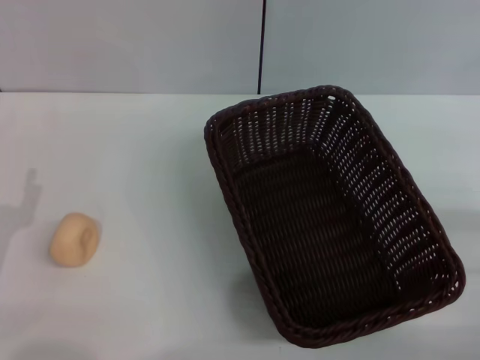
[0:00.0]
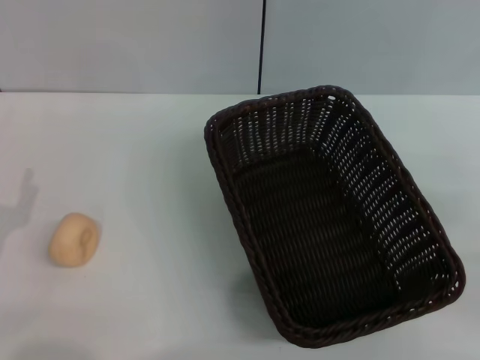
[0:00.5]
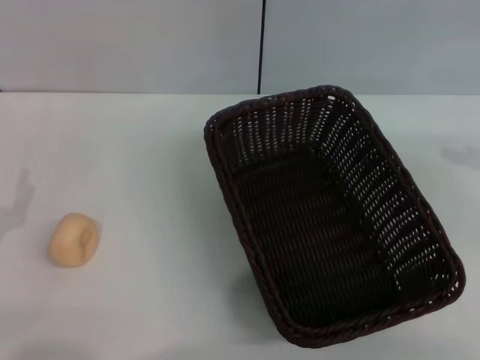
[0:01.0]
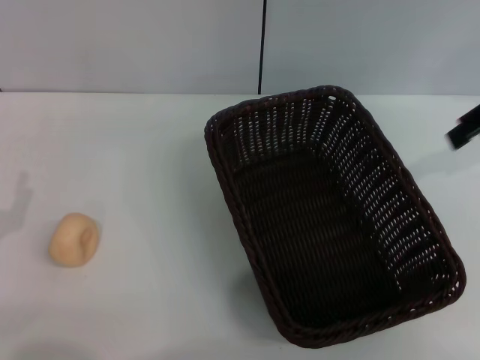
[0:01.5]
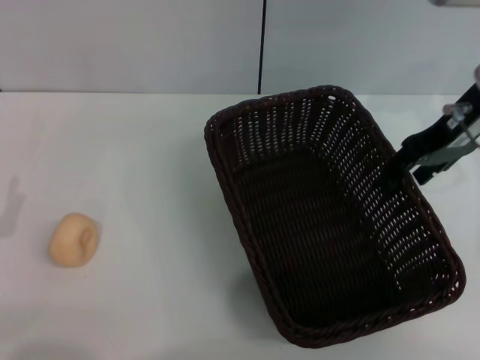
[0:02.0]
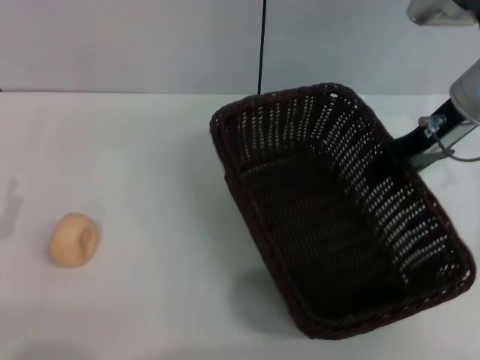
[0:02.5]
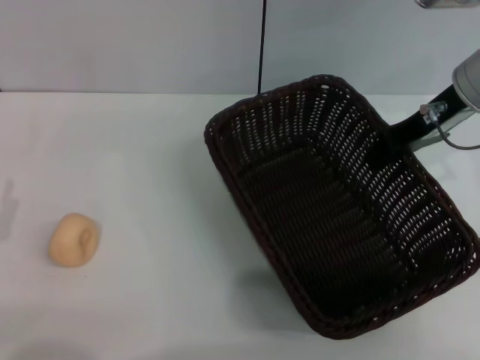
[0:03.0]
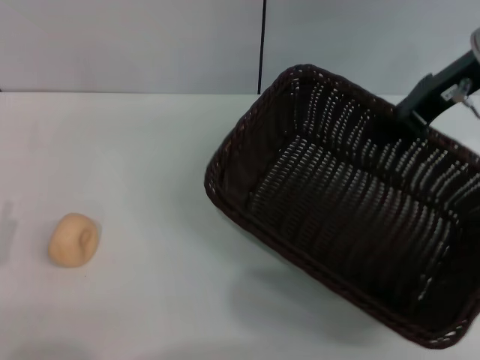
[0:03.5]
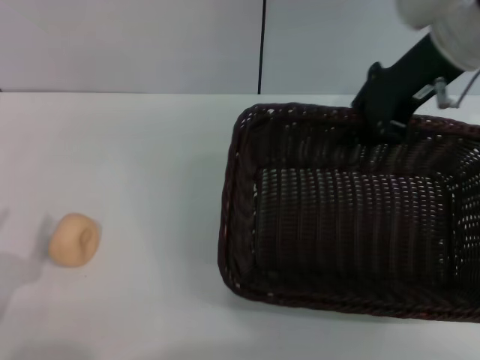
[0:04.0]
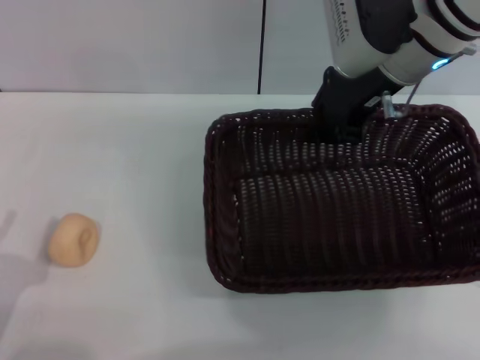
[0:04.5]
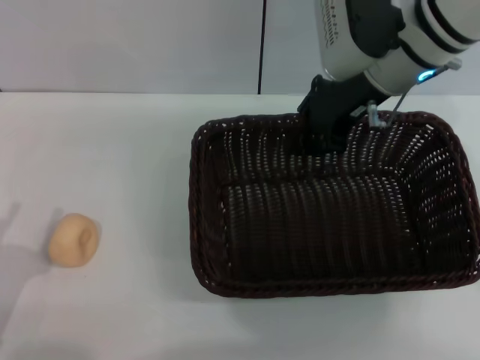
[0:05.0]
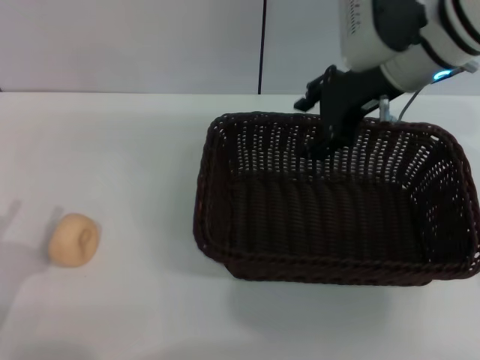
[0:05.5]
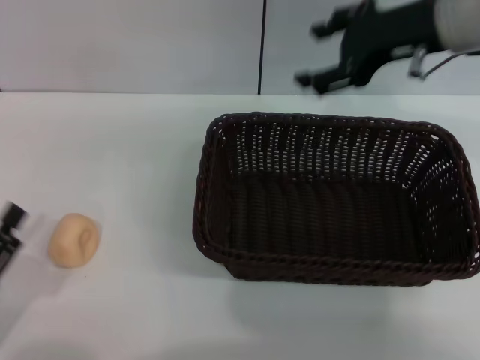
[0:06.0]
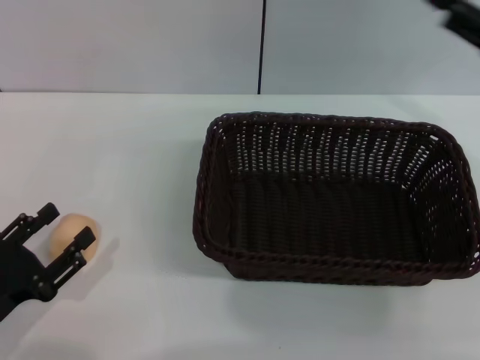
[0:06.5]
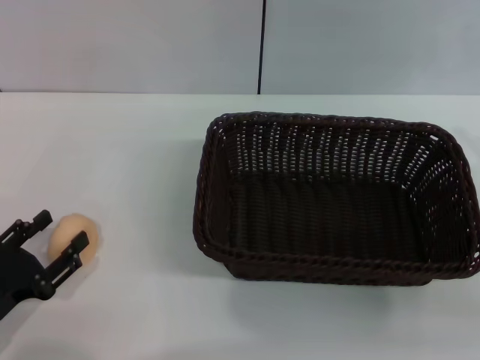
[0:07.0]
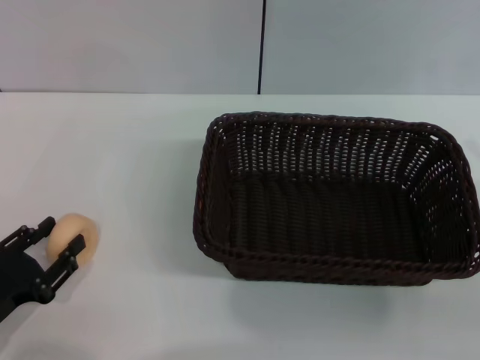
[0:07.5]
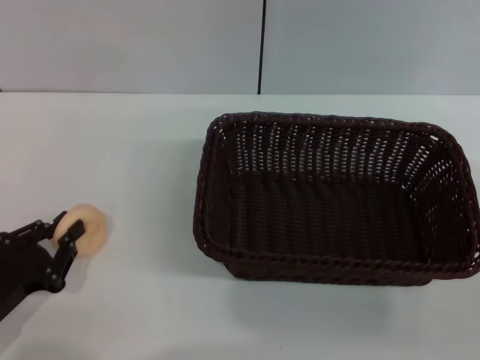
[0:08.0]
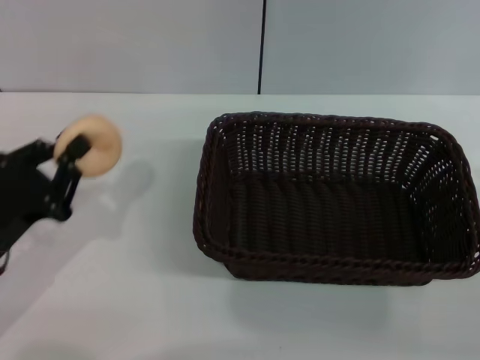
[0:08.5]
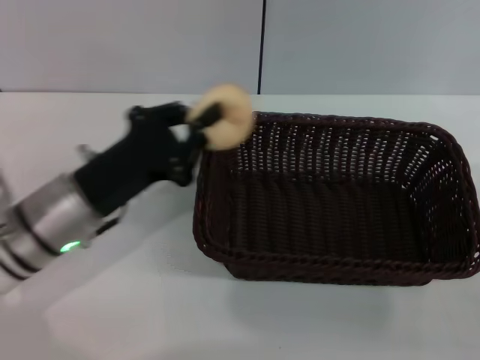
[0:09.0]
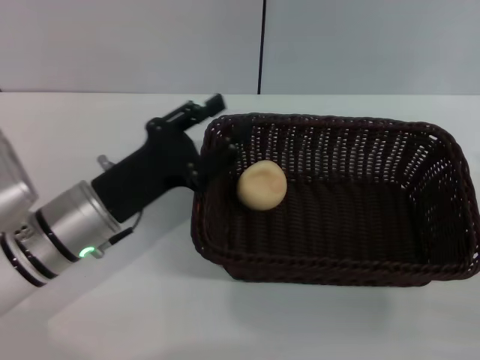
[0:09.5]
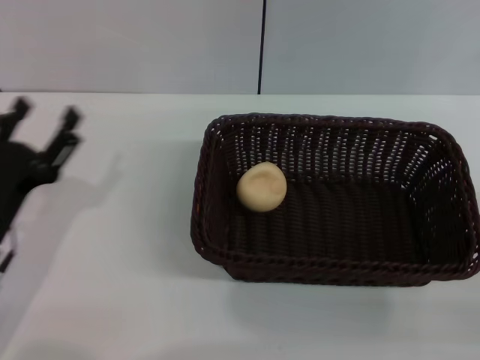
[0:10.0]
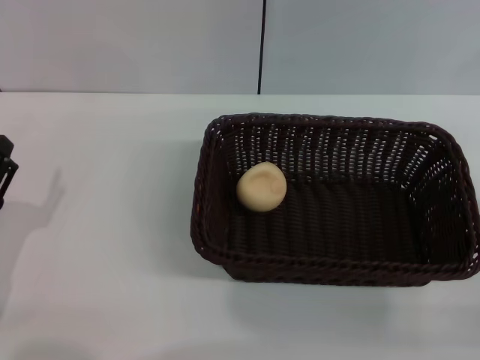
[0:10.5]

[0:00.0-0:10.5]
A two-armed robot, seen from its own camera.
Step, 0:00.0 to 0:05.5: Move the basket to the center of view with the right gripper.
Step, 0:06.0 to 0:08.0: Pick up the egg yolk pastry with the left gripper.
Step, 0:08.5 to 0:09.5: Place the egg yolk pastry into the basket with the left gripper.
0:00.0 to 0:02.0: The right gripper travels forward, upward and to the left by some 30 cm.
0:02.0 to 0:04.0: The left gripper moves backward, about 5 cm; the right gripper ends up approximately 5 cm from where it was, and closes.
0:04.0 to 0:06.5: The right gripper shifts some 20 cm backward, to the right and downward, and opens.
0:06.5 to 0:08.5: The left gripper travels forward by roughly 5 cm, and closes up. The right gripper travels downward and backward by approximately 15 cm.
0:08.5 to 0:10.5: The left gripper reaches some 10 cm to the right, then returns, and opens its fingers.

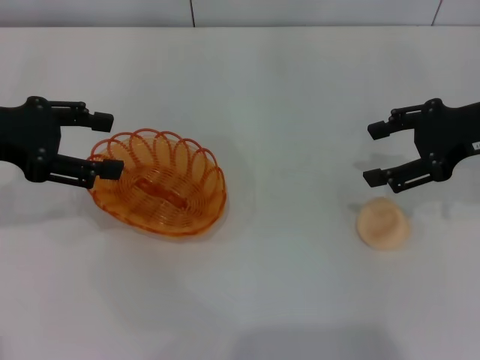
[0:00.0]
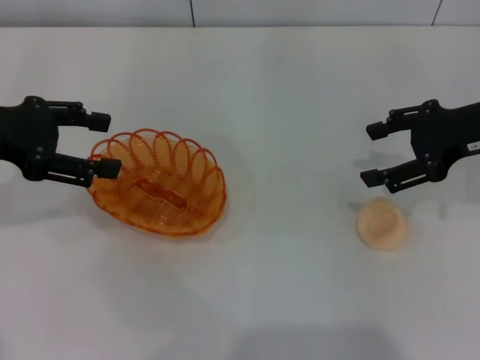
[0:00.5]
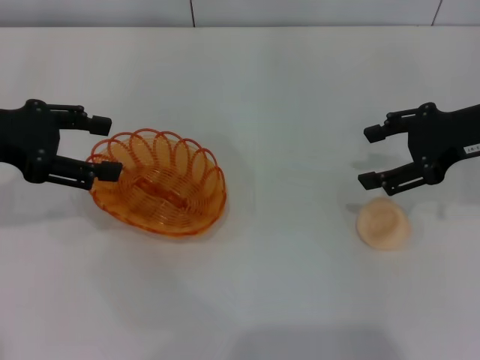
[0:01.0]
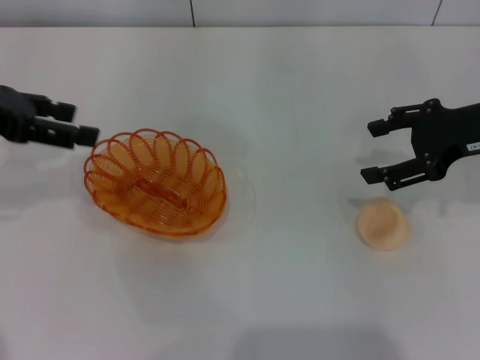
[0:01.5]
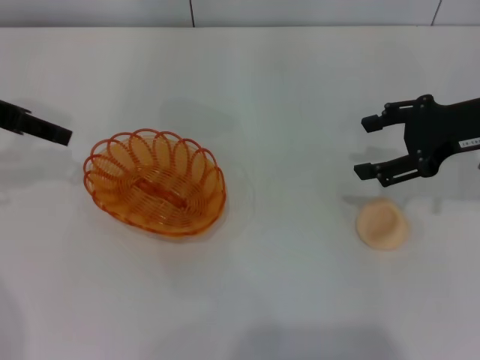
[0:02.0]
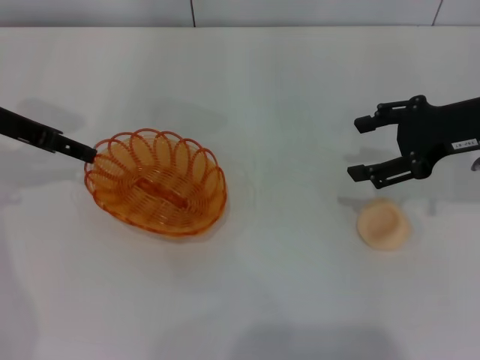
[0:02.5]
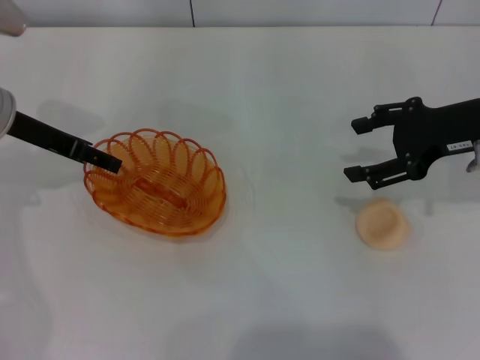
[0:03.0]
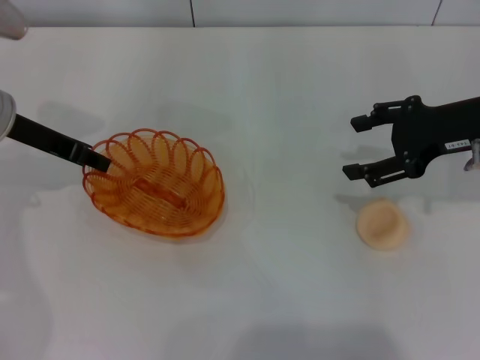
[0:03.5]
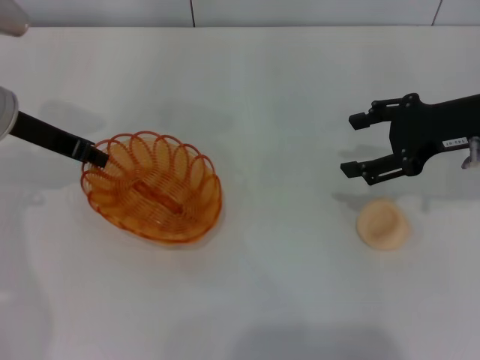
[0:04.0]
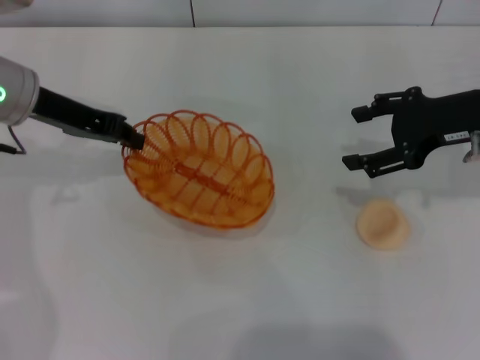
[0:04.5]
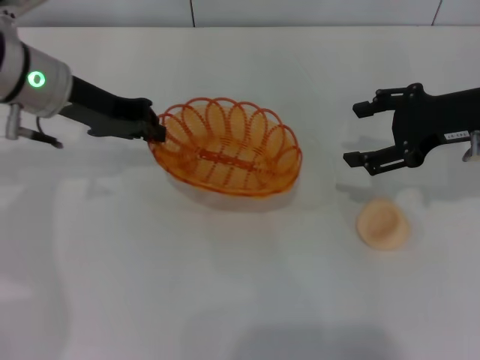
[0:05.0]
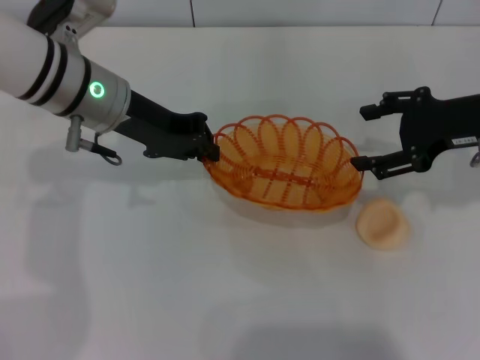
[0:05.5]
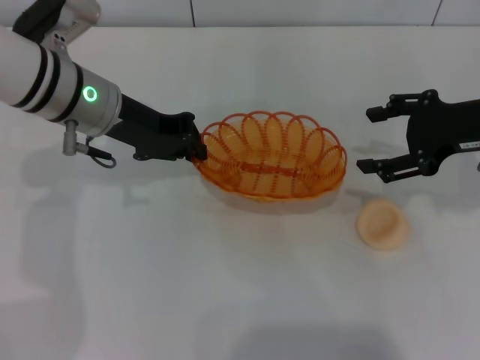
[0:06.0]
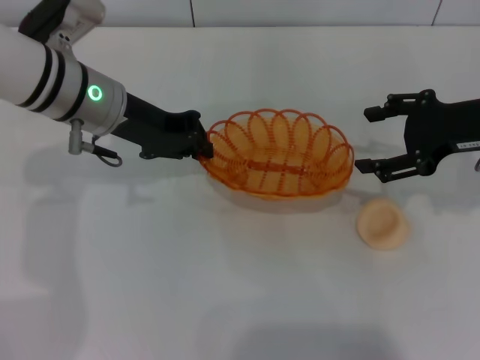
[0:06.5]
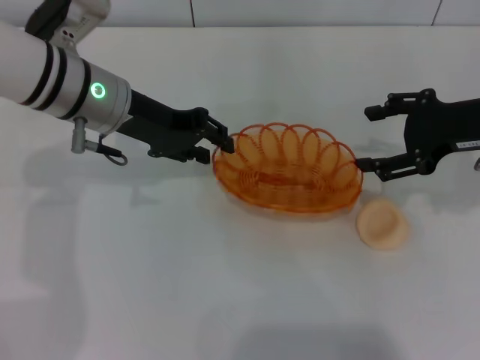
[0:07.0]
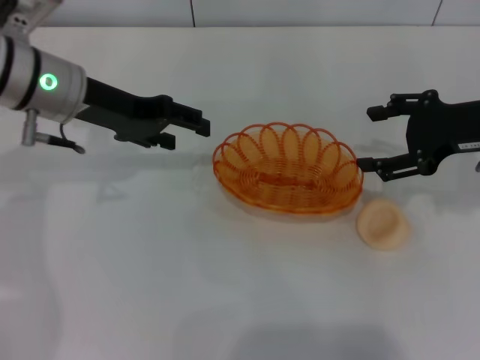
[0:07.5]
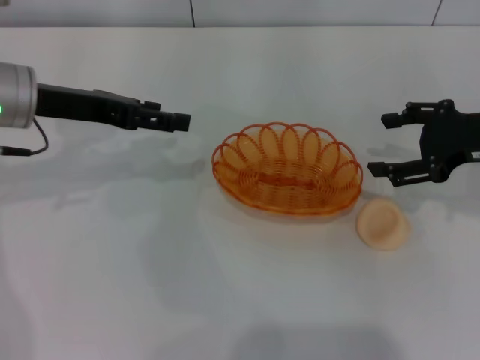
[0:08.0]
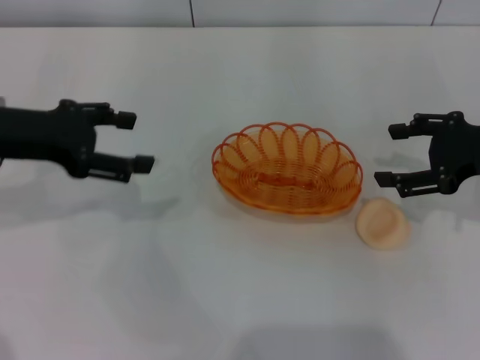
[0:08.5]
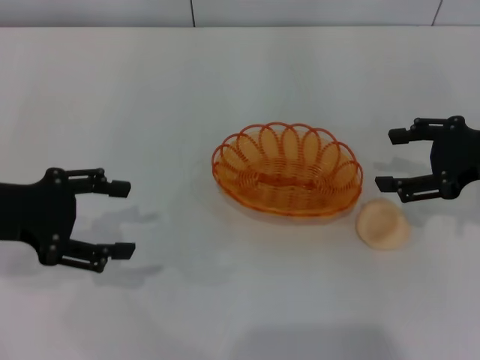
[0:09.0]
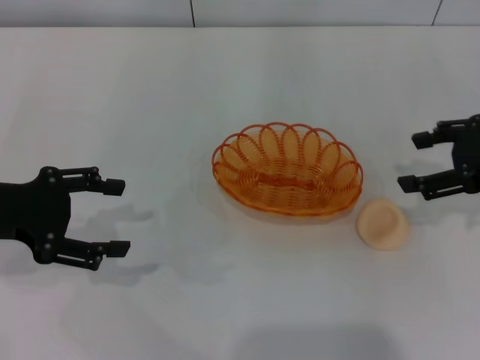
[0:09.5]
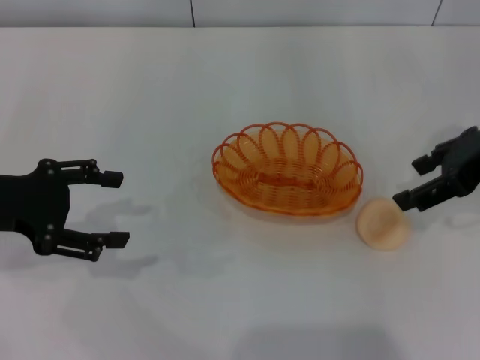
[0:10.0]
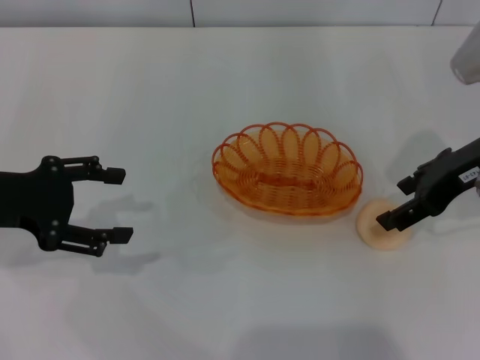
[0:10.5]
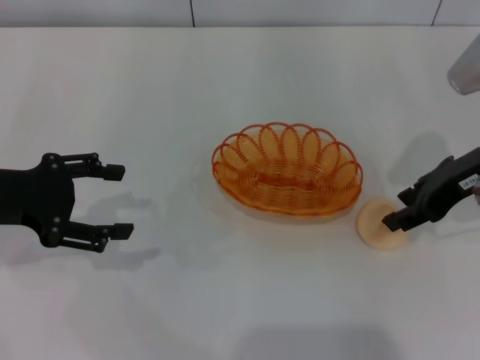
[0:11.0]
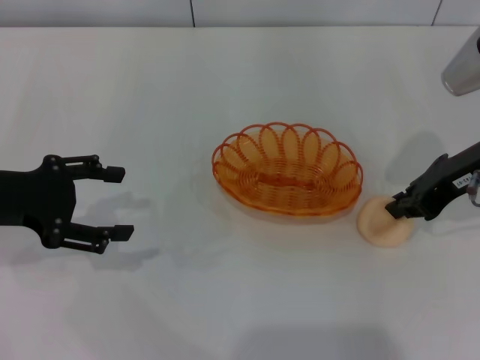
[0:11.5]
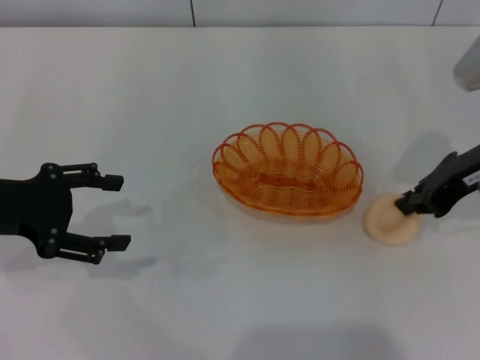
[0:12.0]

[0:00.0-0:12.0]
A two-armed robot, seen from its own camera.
Step, 0:00.0 to 0:04.5: Pick up the basket with the left gripper.
Step, 0:05.0 to 0:07.0: Place the basket in the center of view with the left gripper.
0:00.0 to 0:02.0: The left gripper shifts by approximately 5 cm.
0:02.0 to 0:04.0: The left gripper is displaced downward by roughly 5 cm, and closes up.
0:04.0 to 0:06.0: The left gripper moves to the right, approximately 10 cm.
0:06.0 to 0:08.0: The left gripper heads to the left, covering roughly 5 cm, and opens up.
0:08.0 to 0:10.0: The left gripper moves backward and to the left, approximately 10 cm. The right gripper is displaced upward by about 5 cm.
0:10.0 to 0:12.0: The right gripper closes up.

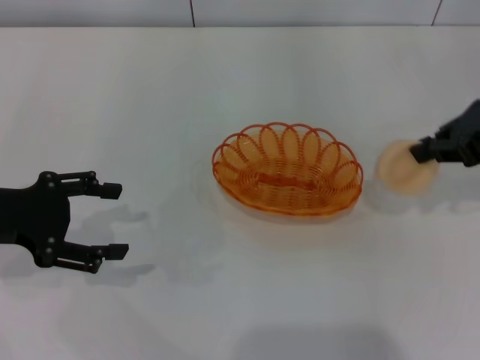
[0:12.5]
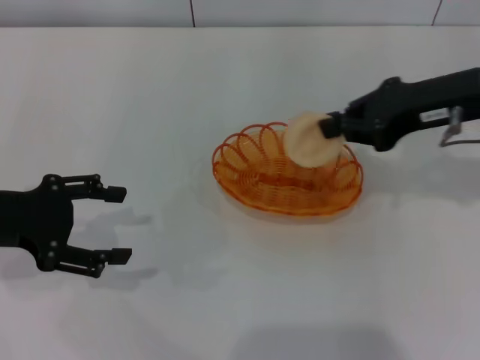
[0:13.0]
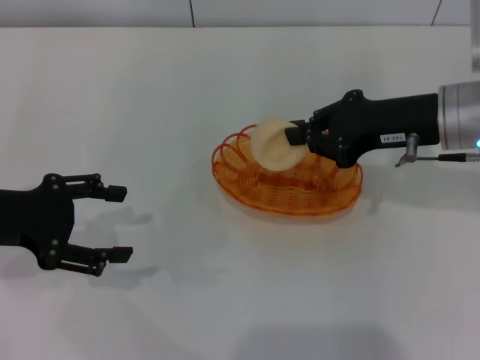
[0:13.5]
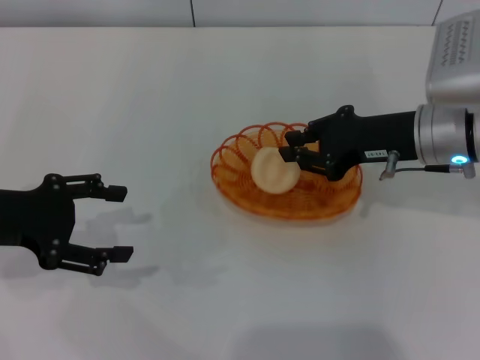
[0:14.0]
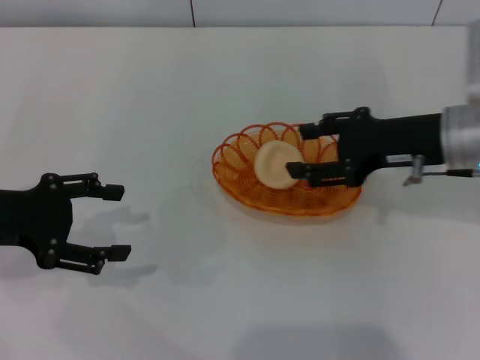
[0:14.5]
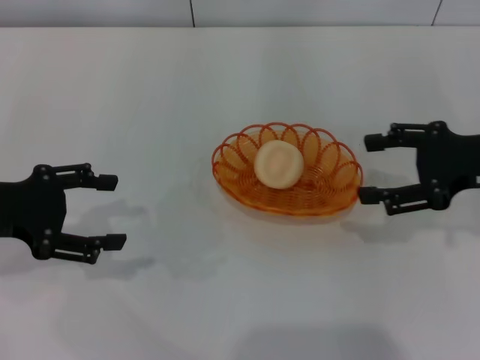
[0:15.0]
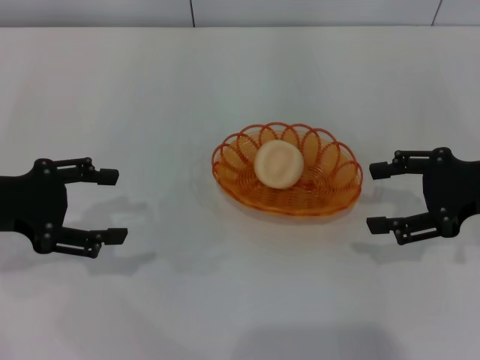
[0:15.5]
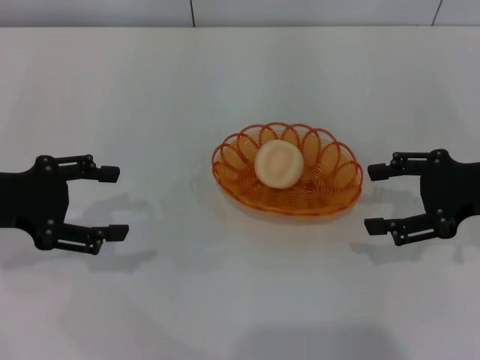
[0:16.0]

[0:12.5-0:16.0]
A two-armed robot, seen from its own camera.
Step, 0:12.5 to 0:14.5: Place the egg yolk pastry into the basket with the right gripper.
0:12.5 to 0:14.5: The right gripper moves downward and to the left, about 10 cm, and opens its fingers.
0:14.5 to 0:16.0: The right gripper goes roughly 10 cm to the right, and opens.
